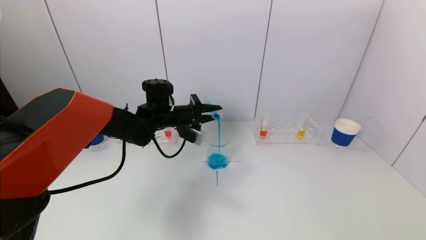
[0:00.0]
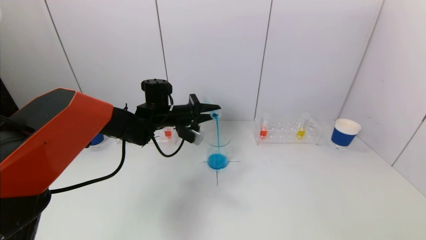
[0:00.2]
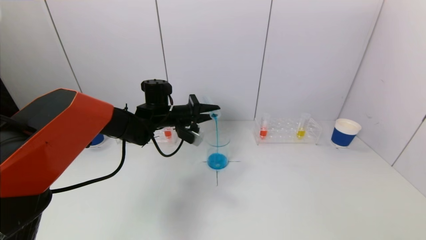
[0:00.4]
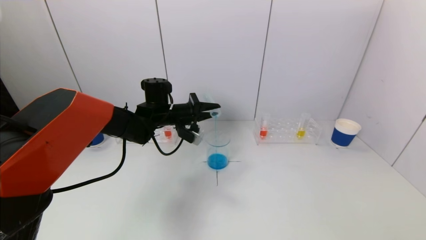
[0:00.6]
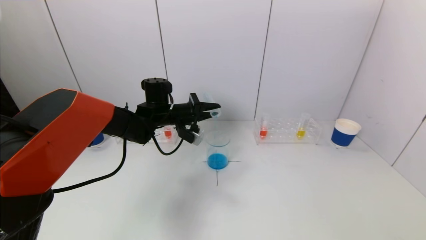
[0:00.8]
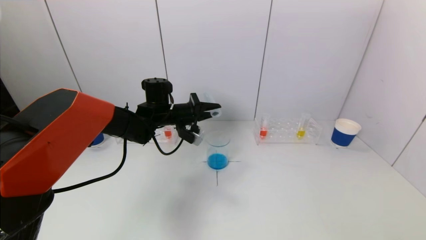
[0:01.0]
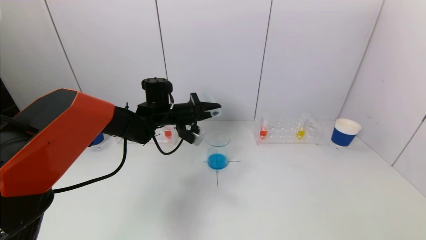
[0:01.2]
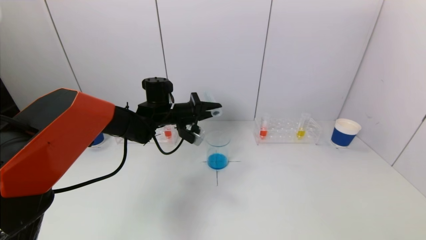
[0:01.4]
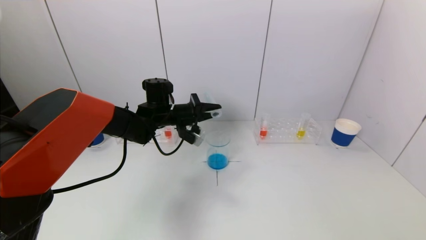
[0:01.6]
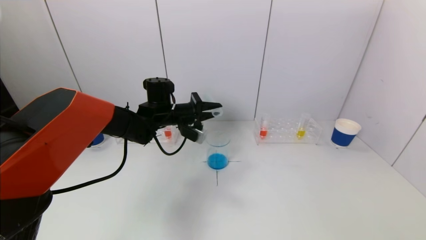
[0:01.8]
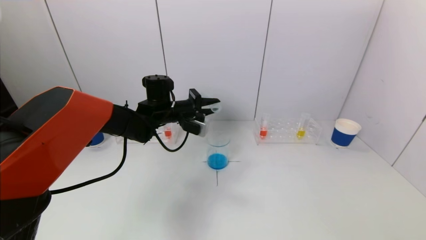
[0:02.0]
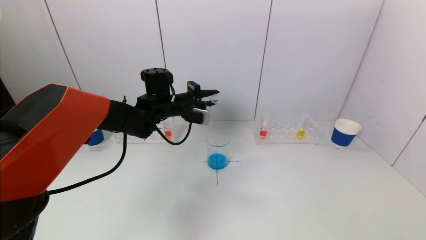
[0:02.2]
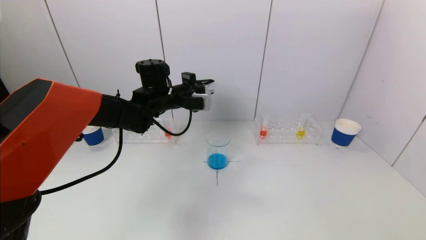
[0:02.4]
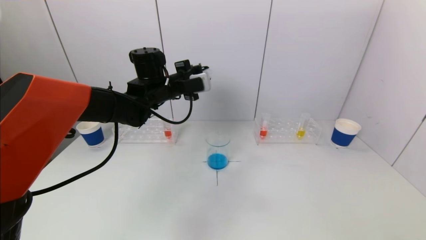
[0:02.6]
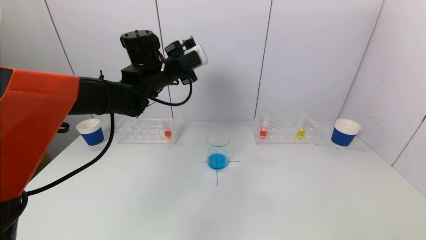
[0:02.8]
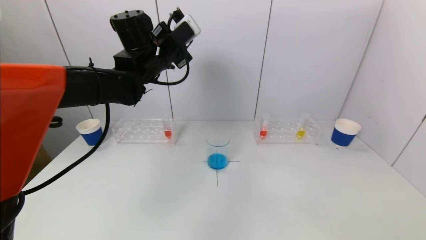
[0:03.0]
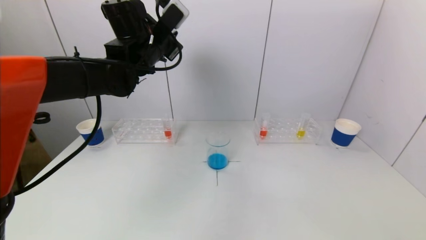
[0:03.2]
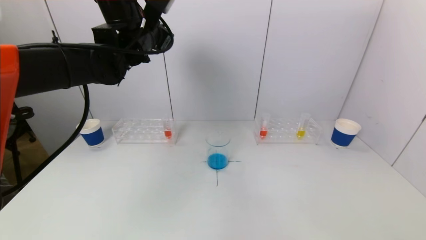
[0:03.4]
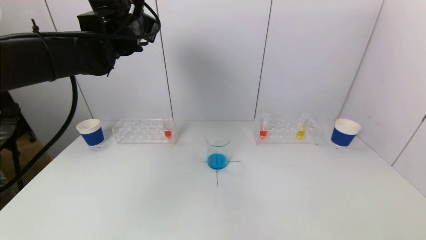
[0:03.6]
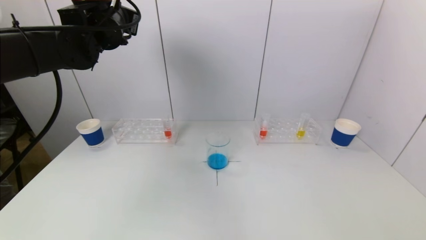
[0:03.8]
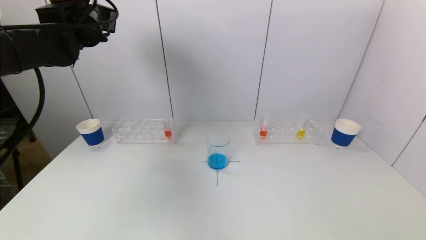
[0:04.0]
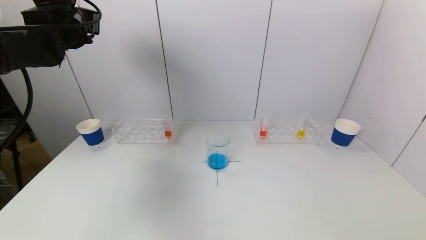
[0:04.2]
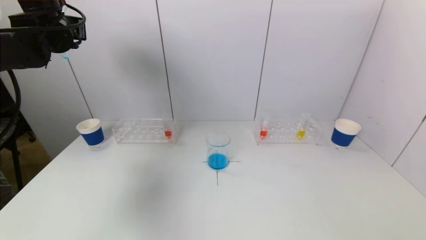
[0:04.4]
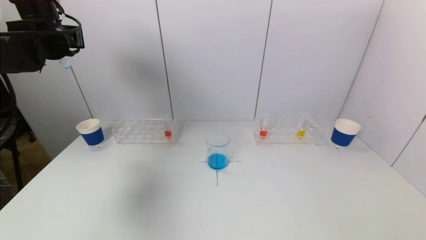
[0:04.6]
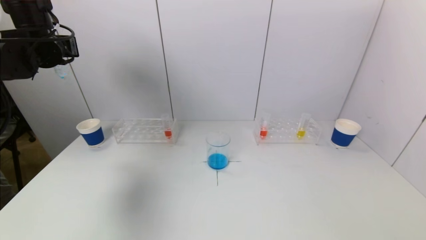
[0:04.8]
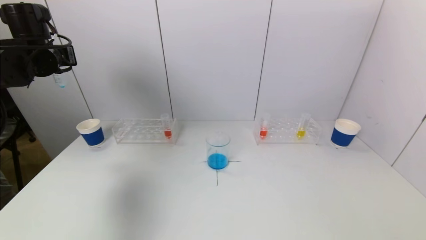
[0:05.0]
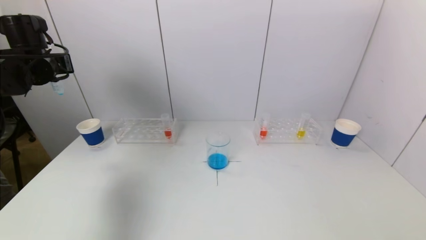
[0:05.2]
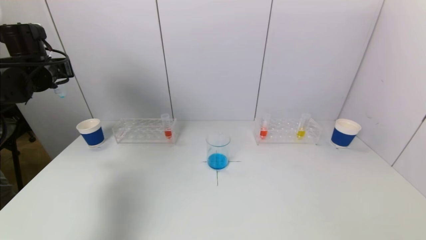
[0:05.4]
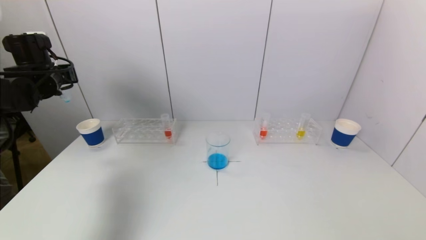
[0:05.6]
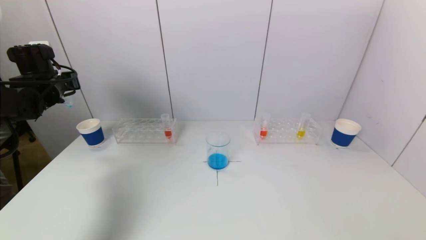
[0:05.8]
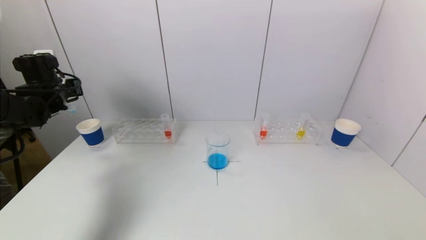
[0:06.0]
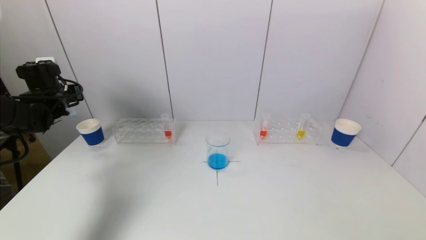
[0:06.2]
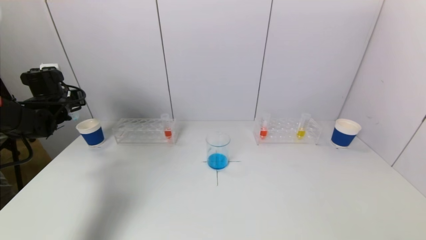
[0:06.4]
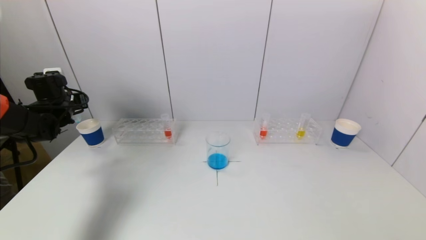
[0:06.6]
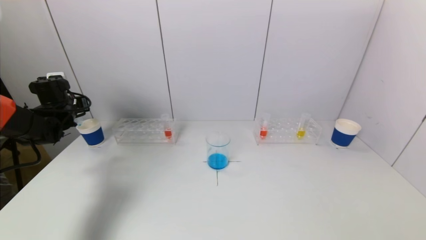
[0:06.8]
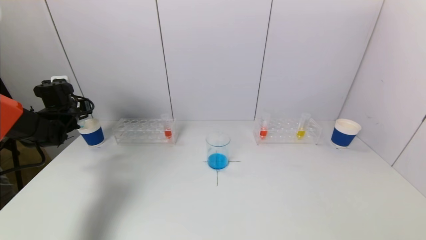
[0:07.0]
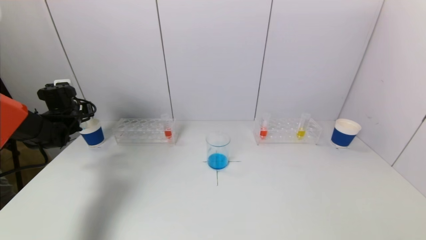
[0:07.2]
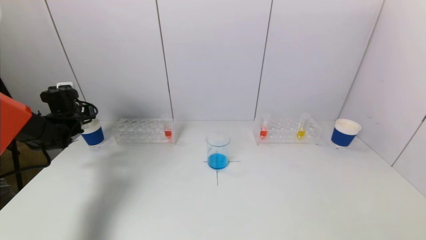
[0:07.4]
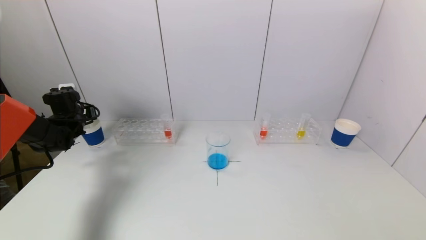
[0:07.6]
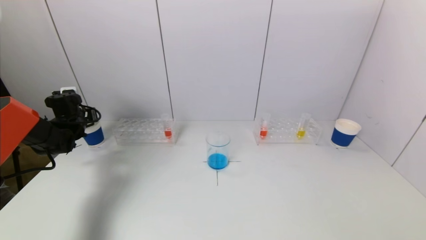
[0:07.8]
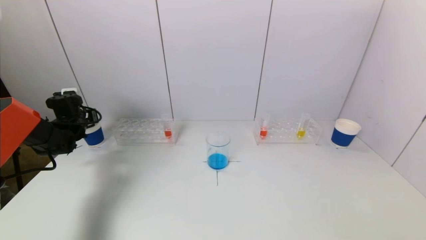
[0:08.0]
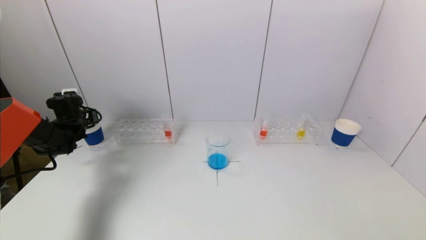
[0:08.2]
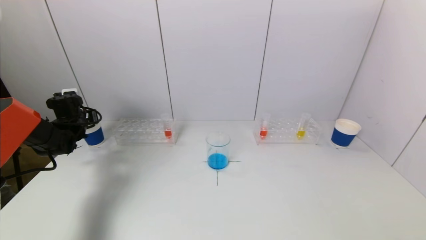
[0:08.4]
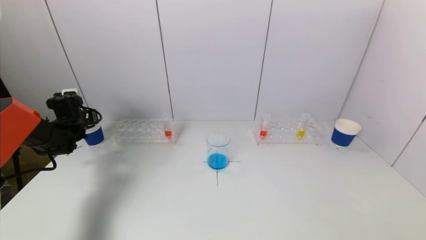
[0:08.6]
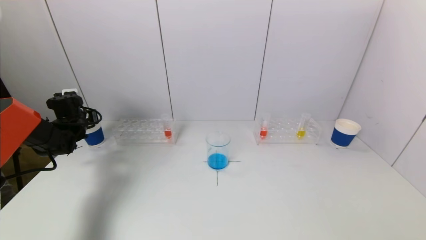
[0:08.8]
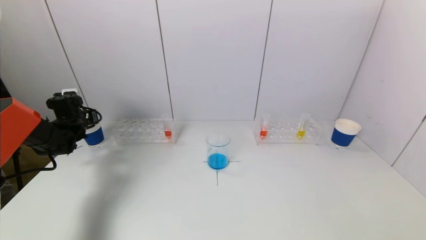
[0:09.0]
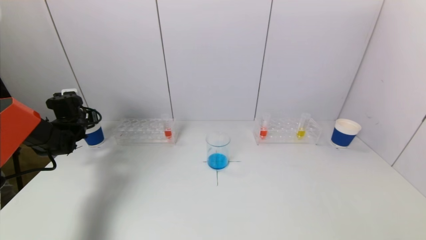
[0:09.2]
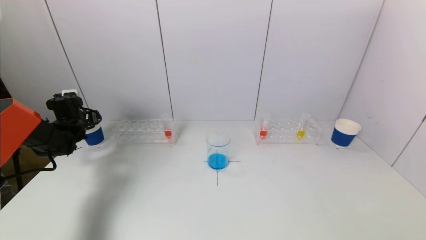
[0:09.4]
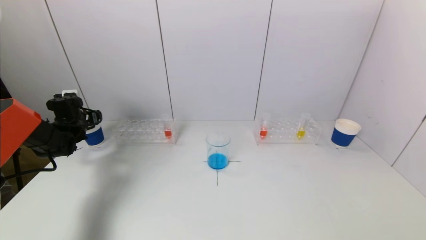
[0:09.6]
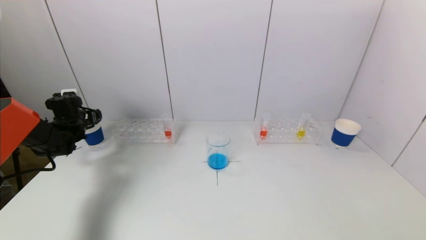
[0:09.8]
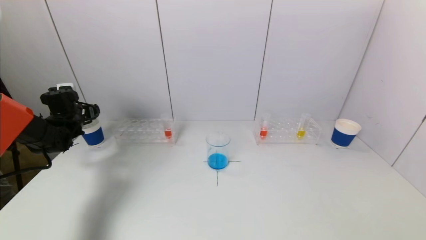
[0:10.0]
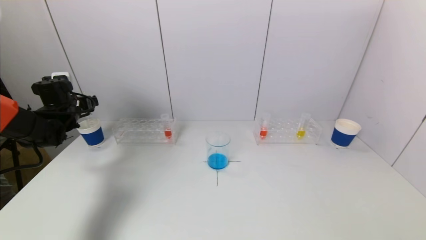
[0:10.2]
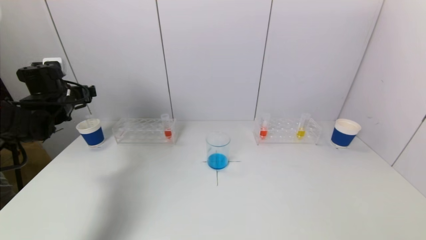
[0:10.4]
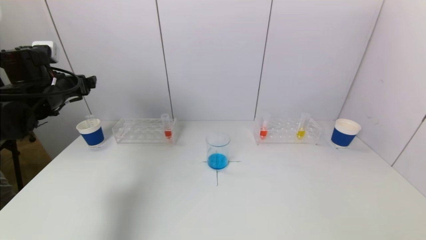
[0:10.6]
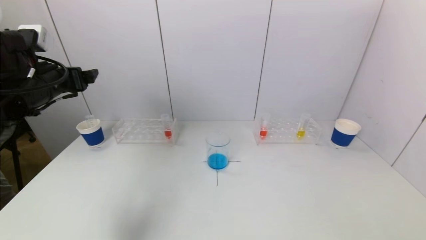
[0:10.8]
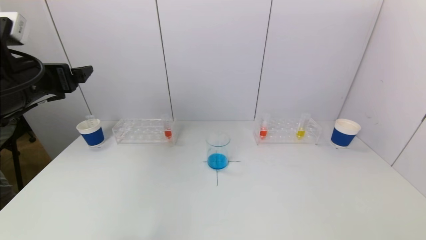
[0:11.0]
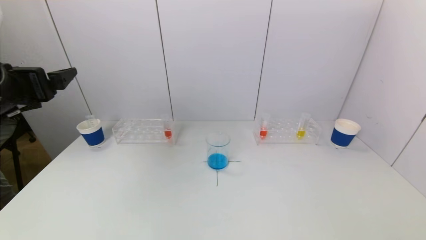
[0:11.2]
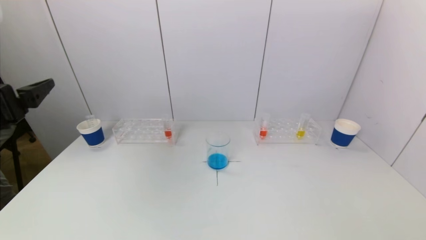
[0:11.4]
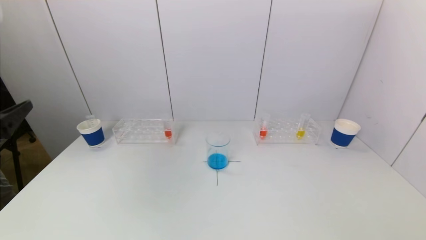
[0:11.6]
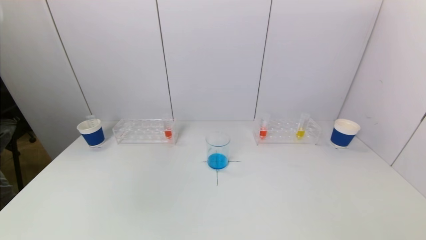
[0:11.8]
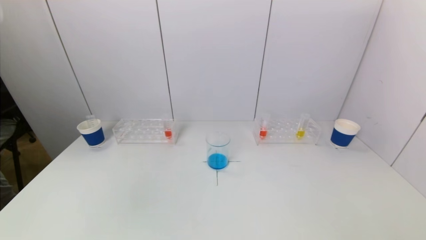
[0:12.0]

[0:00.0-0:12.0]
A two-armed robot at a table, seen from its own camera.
Task of the whole recording: pick up a test tube with pigment on left test tube rack and a test tube with pigment on right test tube rack by grippers and pour them into the beaker.
Step, 0:01.2 to 0:09.6: Place the test tube into the paper cup with the left gripper.
0:00.0 to 0:01.6: The grippers stay close to where they were, moving slightly.
0:01.6 to 0:03.0: The left gripper is displaced upward by some 15 cm.
0:03.0 to 0:04.4: The left gripper heads to the left, covering approximately 20 cm.
0:04.4 to 0:06.0: The left gripper moves downward and to the left, approximately 15 cm.
0:06.0 to 0:07.6: The left gripper moves downward, approximately 10 cm.
0:07.6 to 0:09.0: The grippers stay close to where they were, moving slightly.
0:09.0 to 0:10.4: The left gripper moves upward and backward, some 10 cm, and opens its fingers.
0:10.4 to 0:12.0: The left gripper heads backward, covering roughly 35 cm.

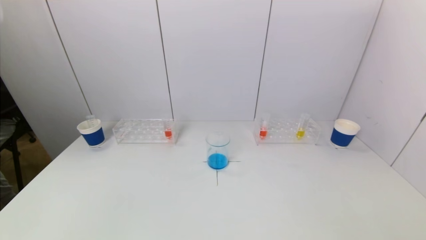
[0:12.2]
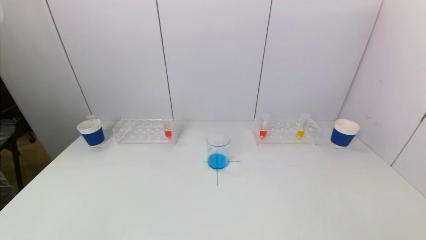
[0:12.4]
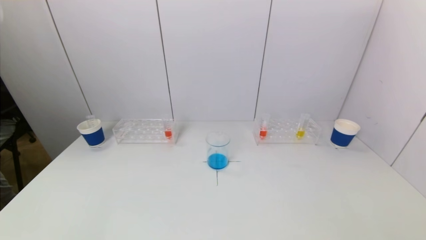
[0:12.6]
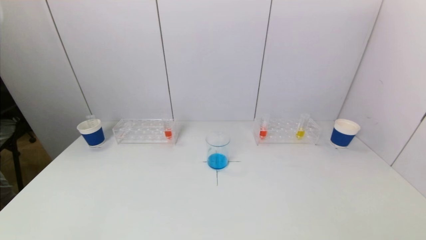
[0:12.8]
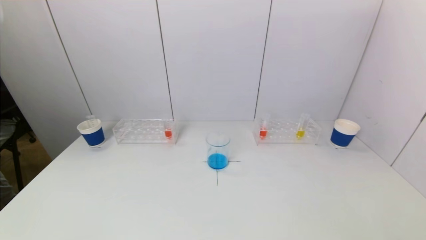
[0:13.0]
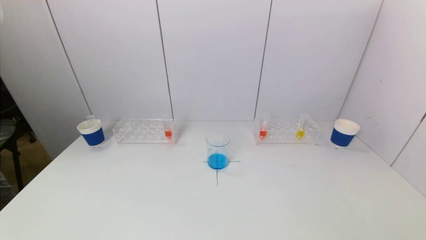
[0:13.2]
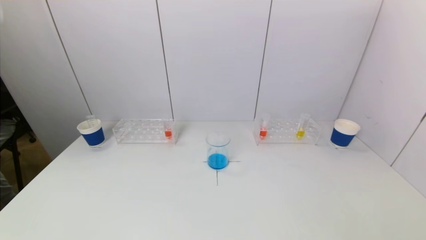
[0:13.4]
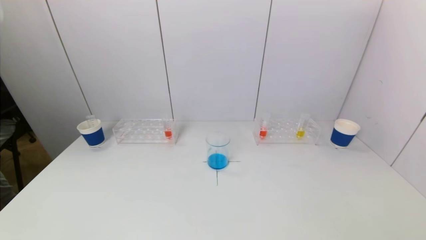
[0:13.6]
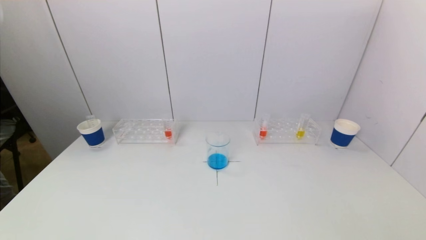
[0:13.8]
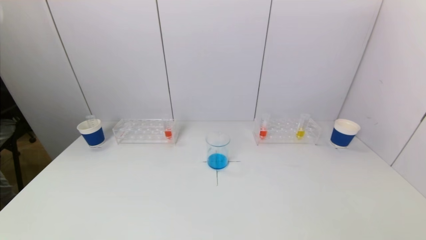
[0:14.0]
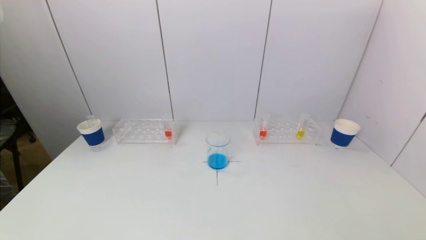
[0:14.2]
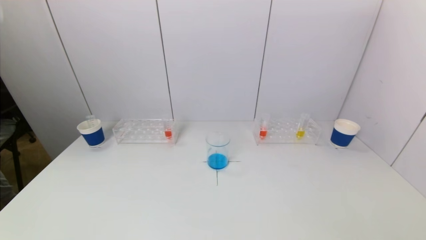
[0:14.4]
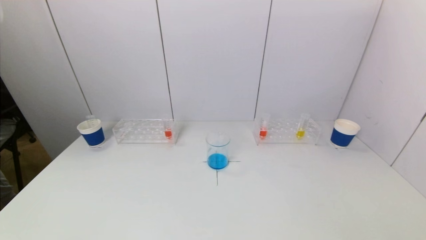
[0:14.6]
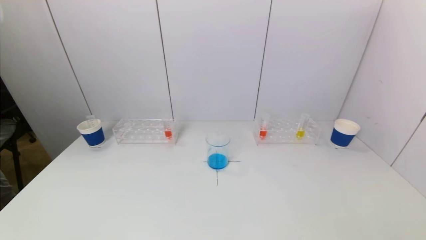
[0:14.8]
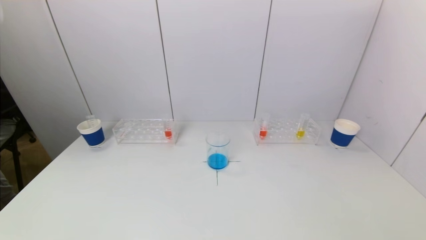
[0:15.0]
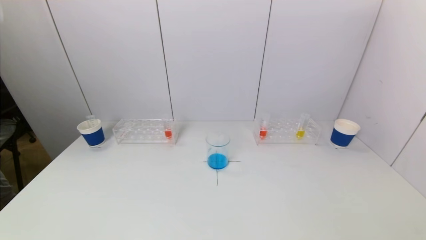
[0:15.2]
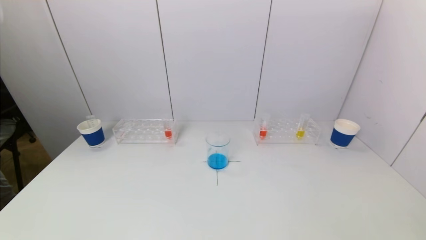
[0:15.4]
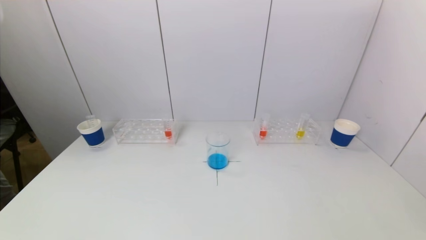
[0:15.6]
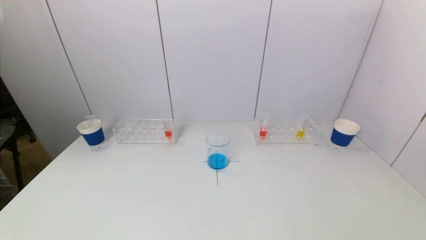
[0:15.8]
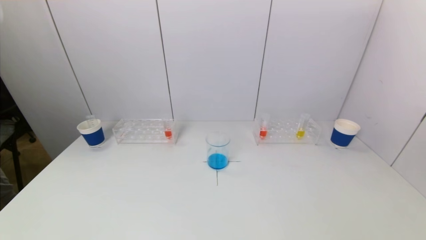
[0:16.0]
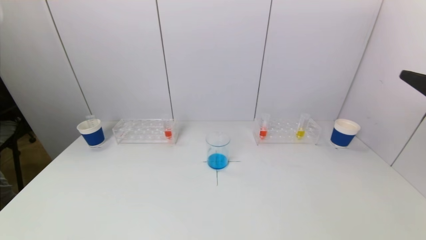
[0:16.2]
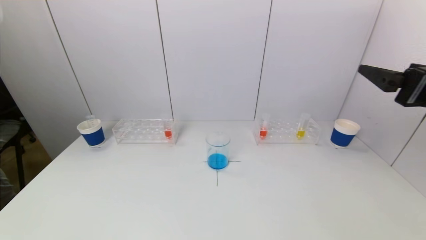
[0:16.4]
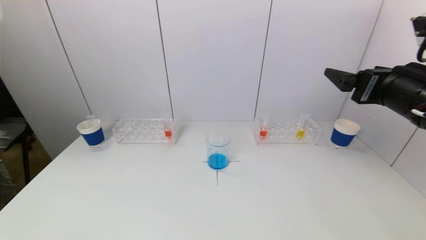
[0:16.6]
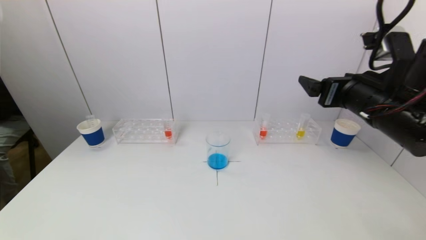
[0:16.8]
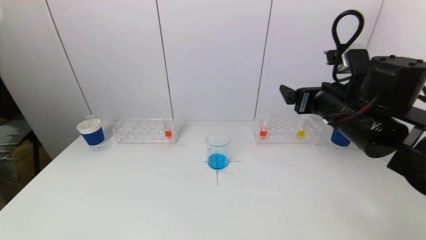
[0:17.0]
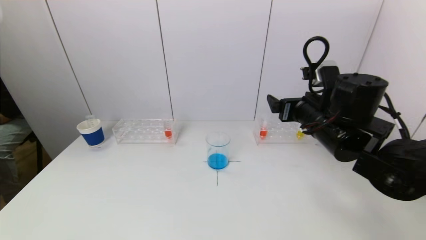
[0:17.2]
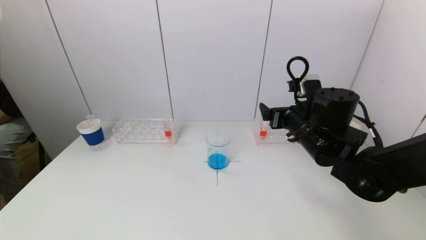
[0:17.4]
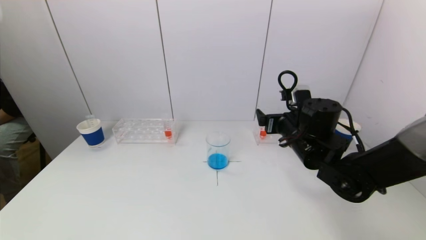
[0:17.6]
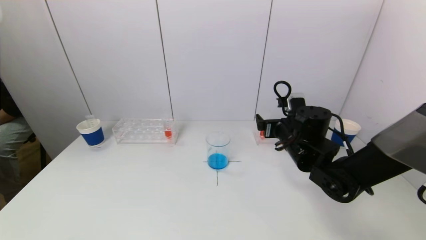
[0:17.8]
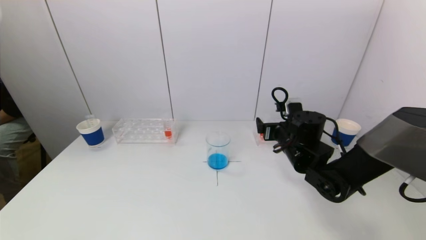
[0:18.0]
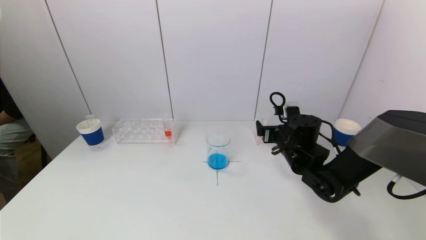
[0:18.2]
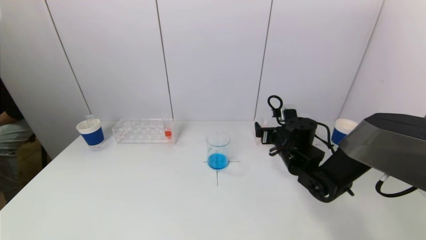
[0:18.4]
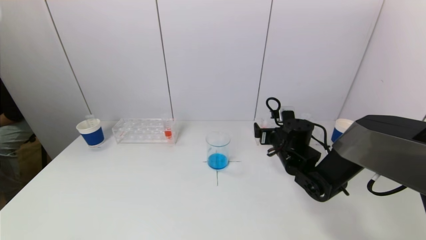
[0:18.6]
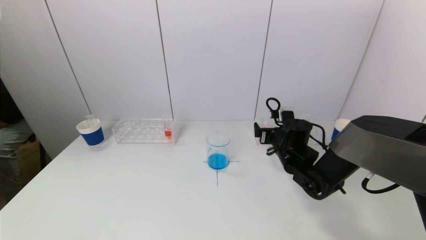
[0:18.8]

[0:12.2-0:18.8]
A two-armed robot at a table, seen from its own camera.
Task of the whole recording: pick up a test tube with pigment on left test tube rack and a test tube with pigment on right test tube rack by grippers and pour them into the beaker.
0:15.4 to 0:17.2: The right gripper moves forward and to the left, roughly 35 cm.
0:17.2 to 0:18.8: The right gripper heads downward and forward, covering roughly 15 cm.
